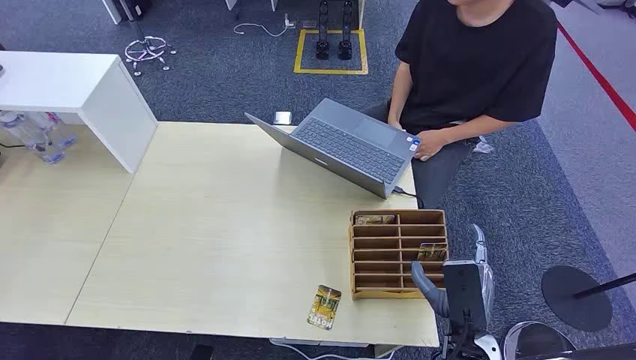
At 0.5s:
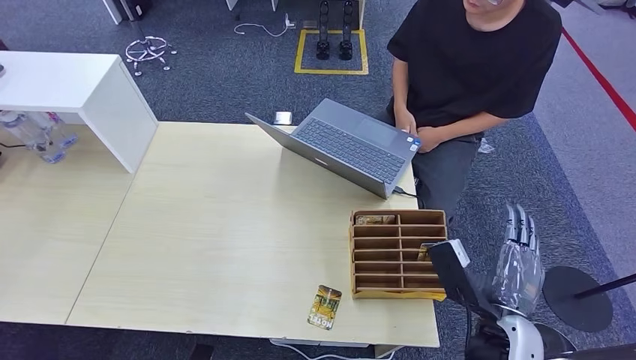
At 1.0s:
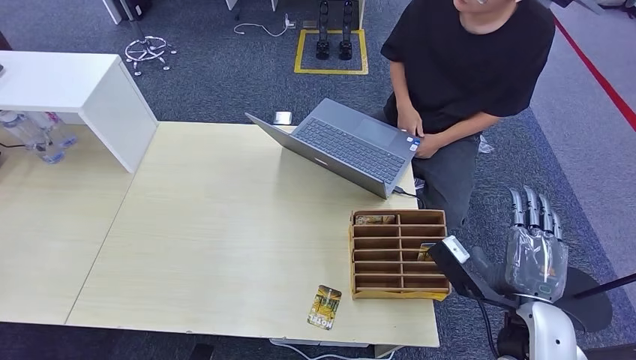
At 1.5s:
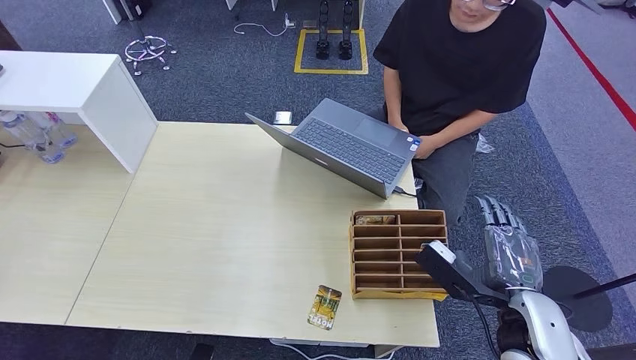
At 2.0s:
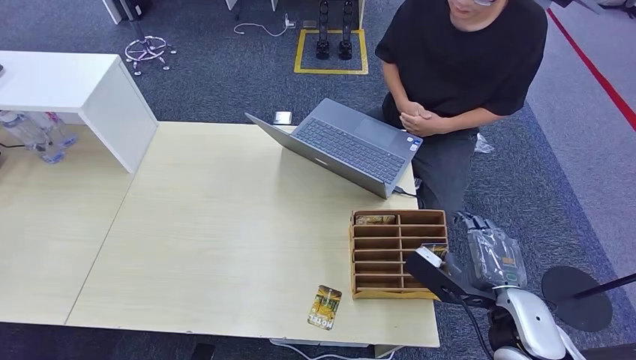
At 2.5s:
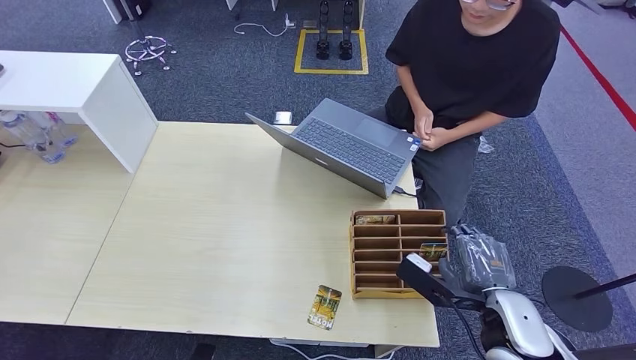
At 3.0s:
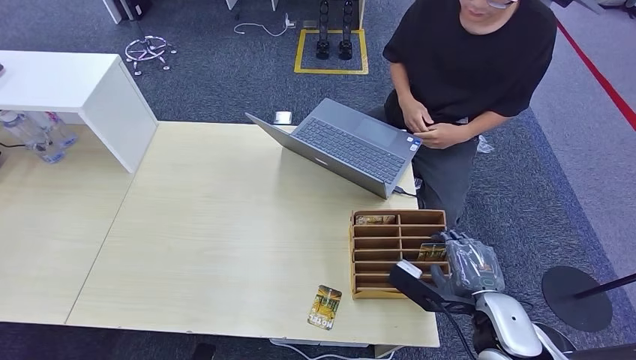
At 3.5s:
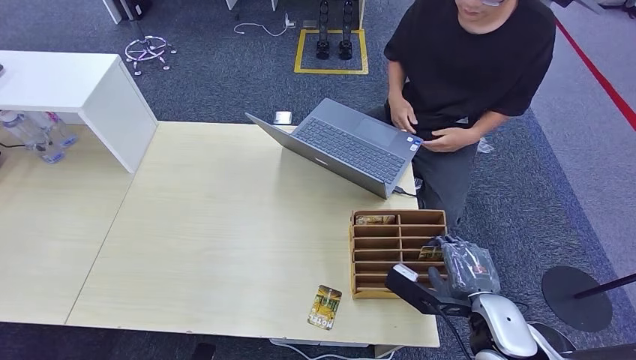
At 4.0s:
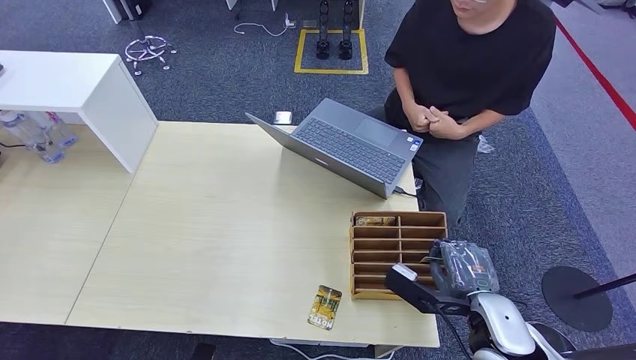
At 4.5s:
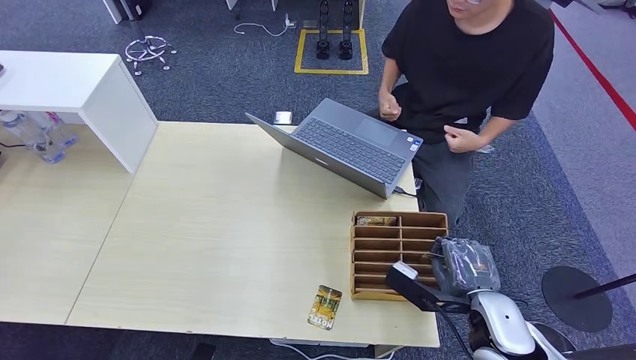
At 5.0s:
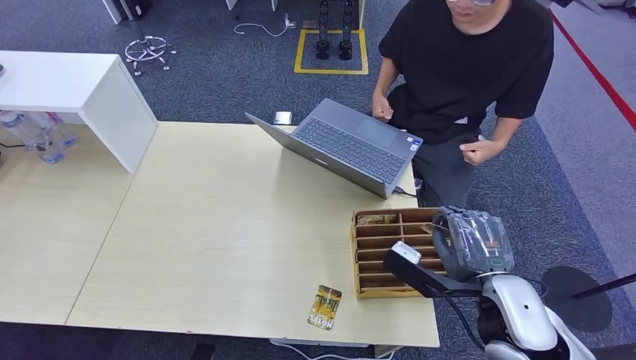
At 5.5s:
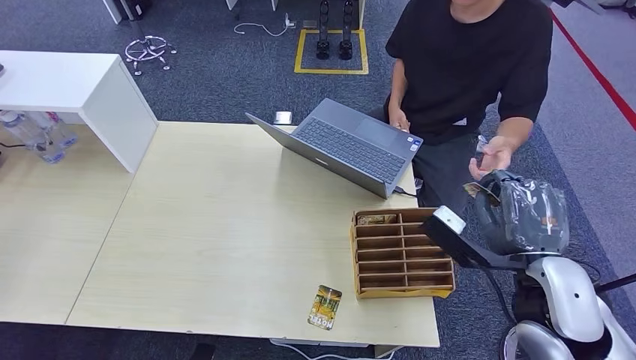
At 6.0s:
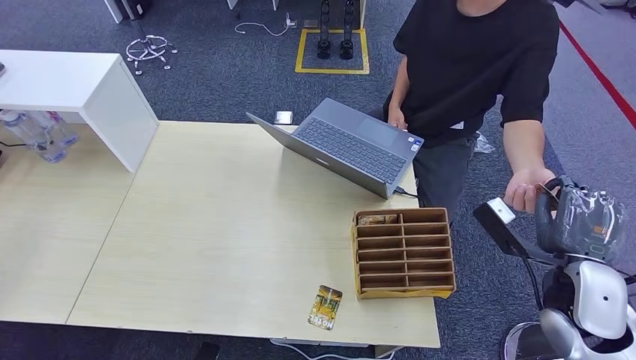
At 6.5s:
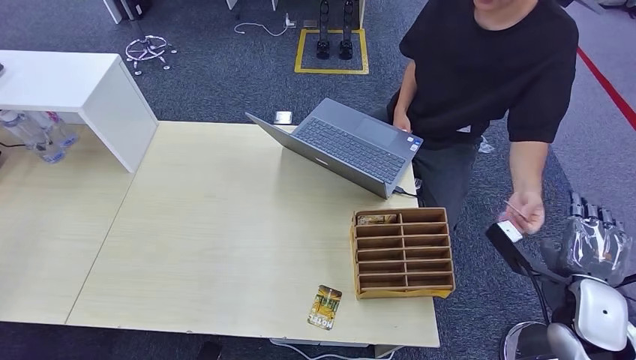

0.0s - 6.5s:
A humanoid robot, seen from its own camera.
Step, 0.0s - 5.5s: Pick up the room card from the card holder.
Step, 6.0s - 6.5s: Hand the room card to the target.
2.0s - 4.5s: The hands stay close to where they were, moving slightly.
4.5s - 6.5s: The right hand is displaced to the right by some 15 cm.
